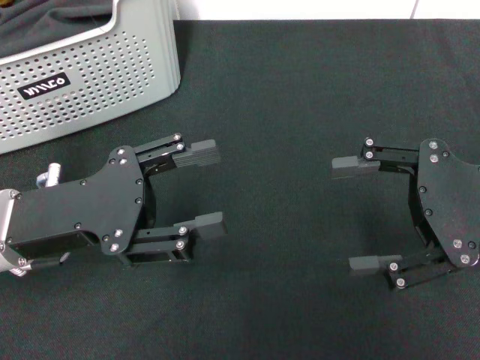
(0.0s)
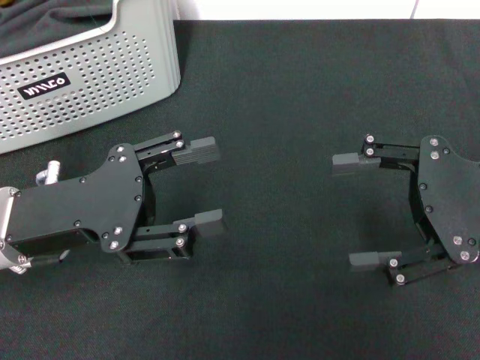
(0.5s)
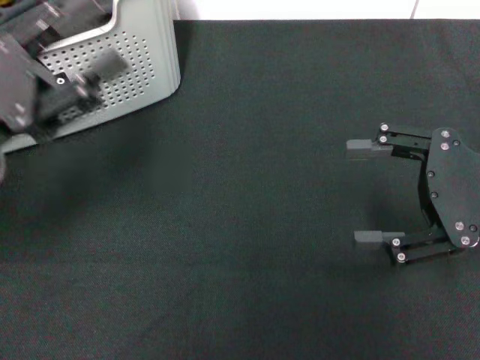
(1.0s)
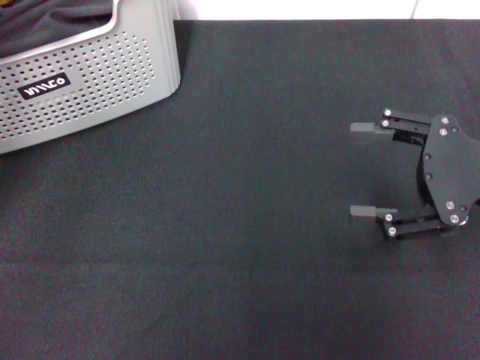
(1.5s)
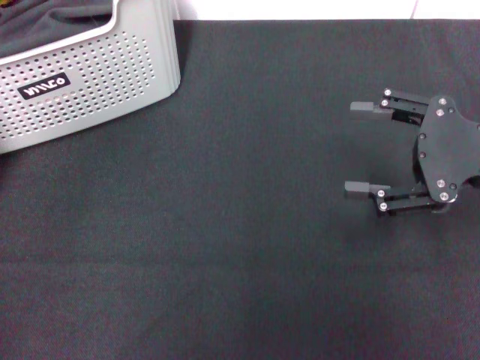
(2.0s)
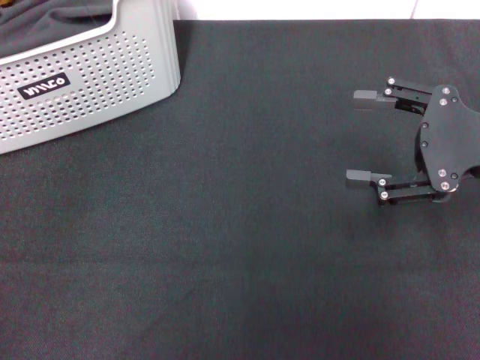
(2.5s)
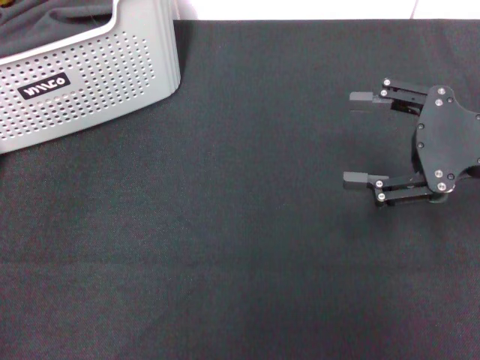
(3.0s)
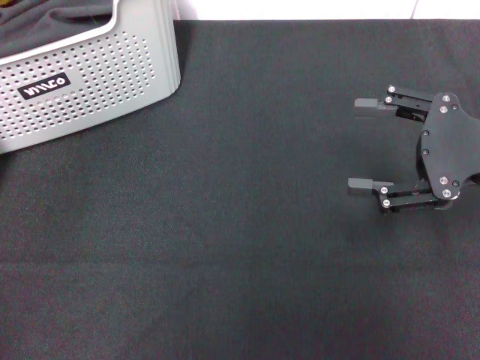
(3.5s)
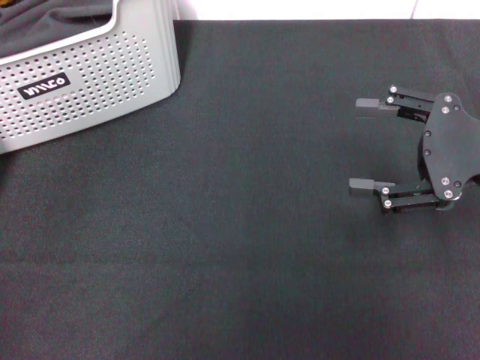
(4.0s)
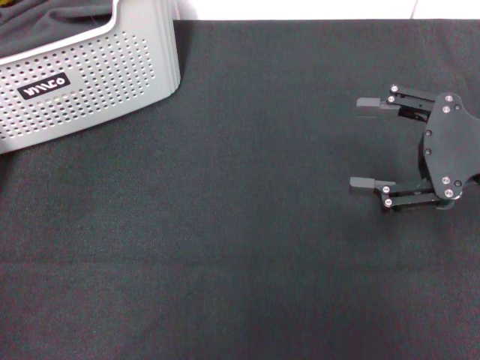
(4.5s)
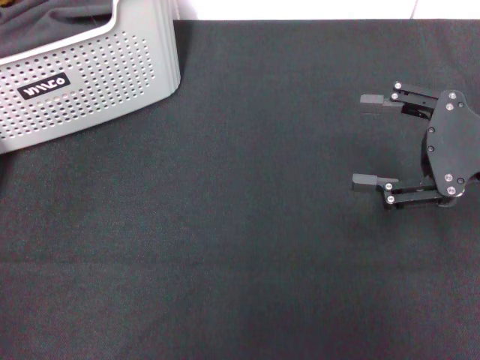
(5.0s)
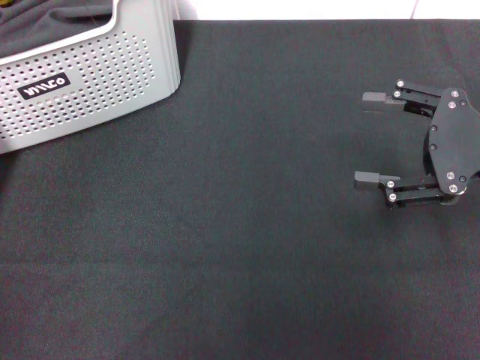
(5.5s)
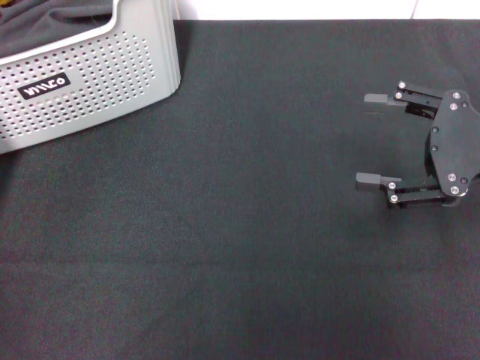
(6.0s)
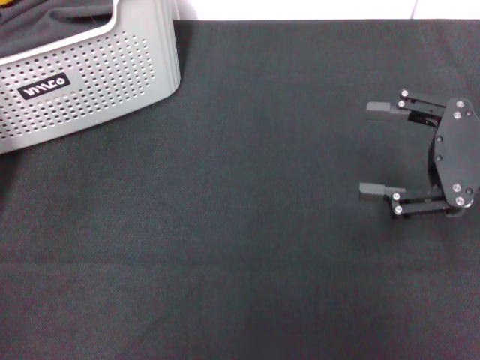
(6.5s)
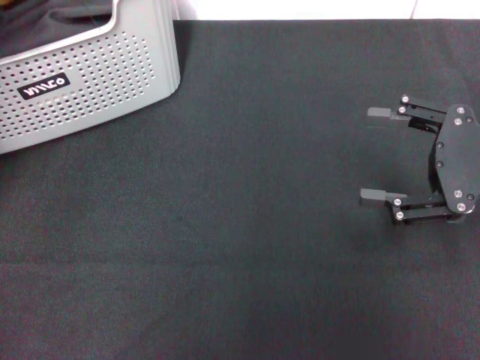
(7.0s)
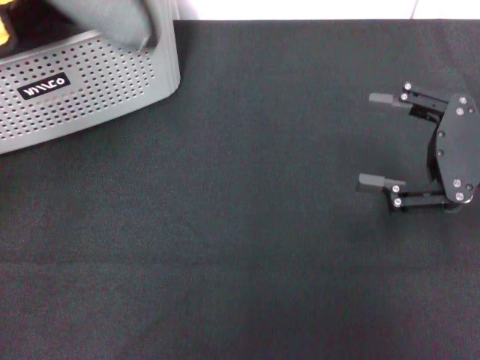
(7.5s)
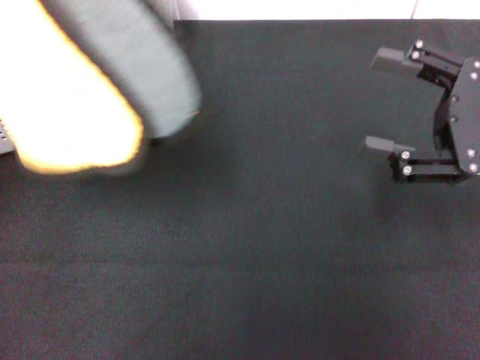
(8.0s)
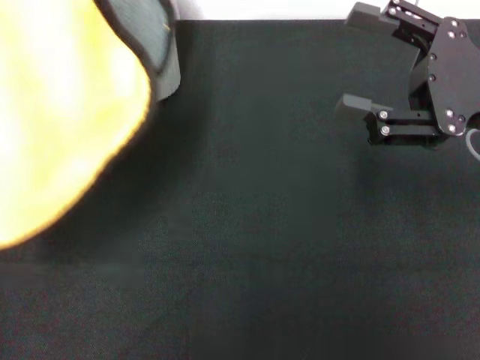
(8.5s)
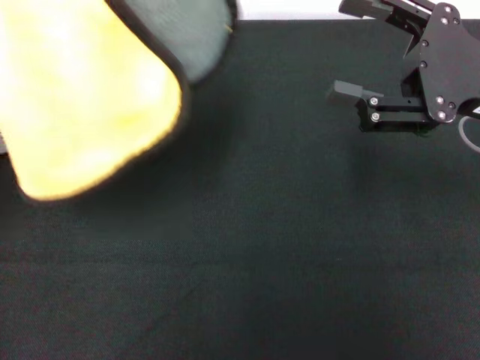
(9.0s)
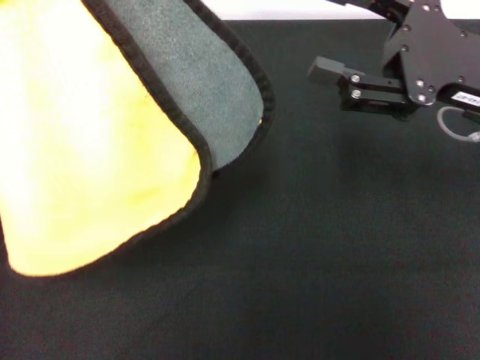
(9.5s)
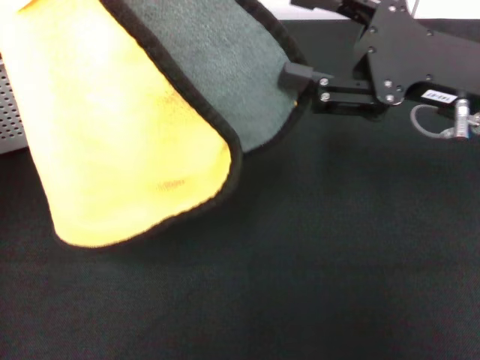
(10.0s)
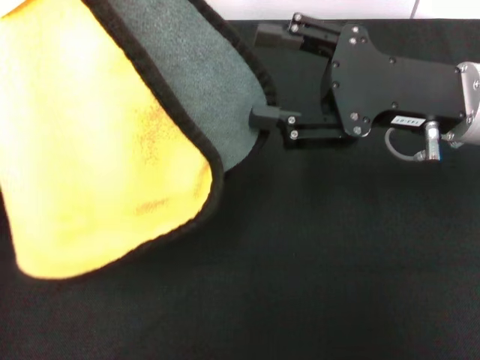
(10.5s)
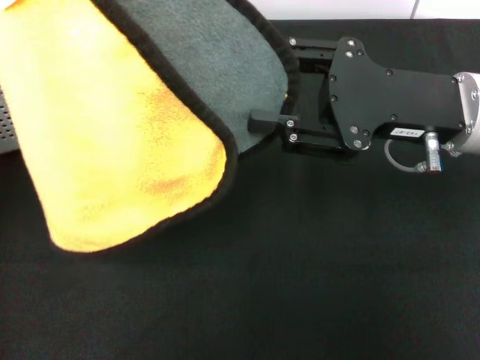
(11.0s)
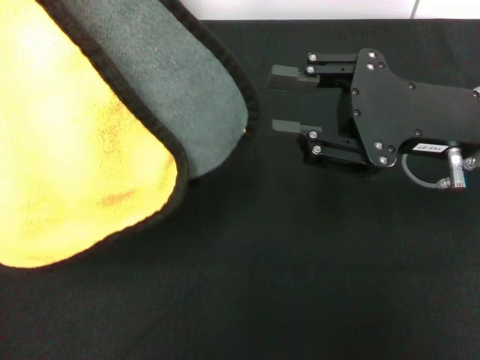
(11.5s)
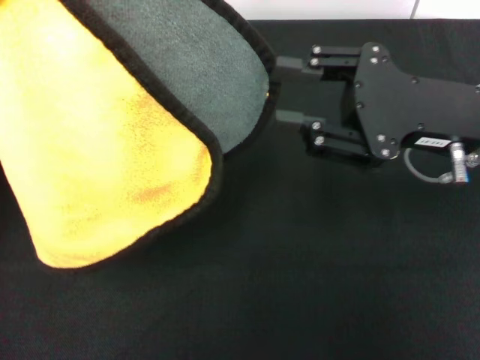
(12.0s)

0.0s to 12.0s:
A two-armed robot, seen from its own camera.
Task of the whole recording: pick up the towel from the storage box and lay it flat on the black tablecloth.
Step, 0.0s to 6.0s: Pick up a towel with the left gripper.
0.0s to 2.0s: The left gripper moves to the left and forward, about 15 cm.
2.0s to 4.0s: There are only small adjustments of the grippers.
6.0s to 8.0s: The left gripper heads upward and backward, covering some 15 cm.
8.0s to 10.0s: The right gripper shifts some 5 cm to the left.
10.0s to 12.0s: The right gripper closes up.

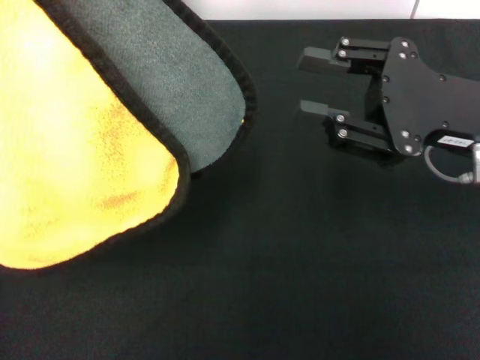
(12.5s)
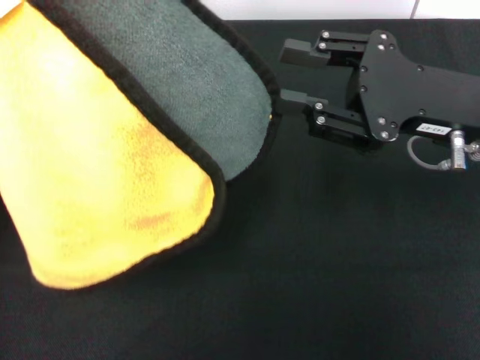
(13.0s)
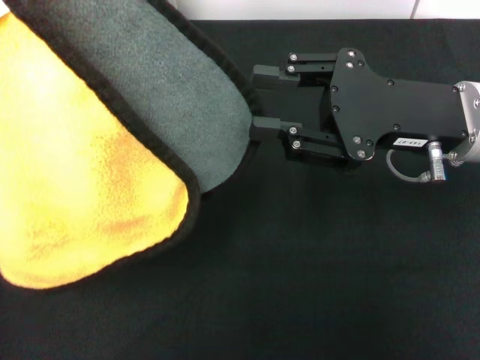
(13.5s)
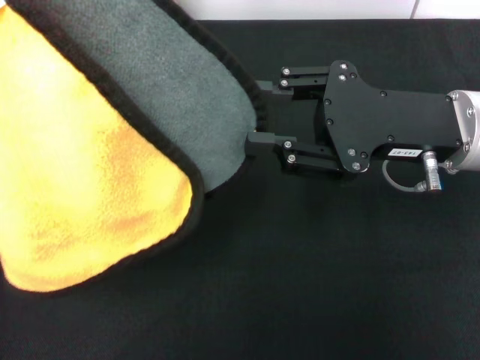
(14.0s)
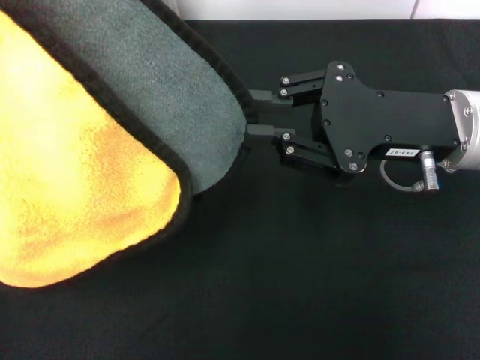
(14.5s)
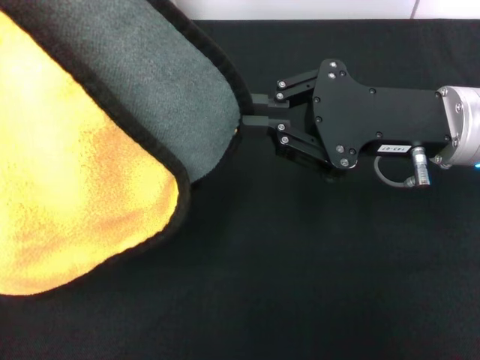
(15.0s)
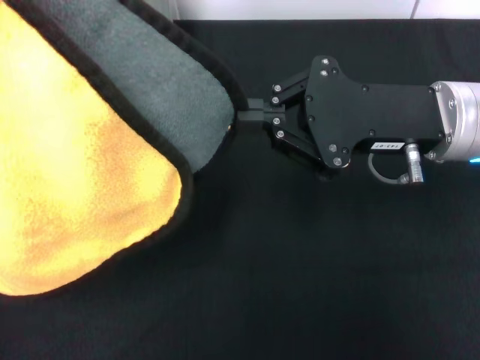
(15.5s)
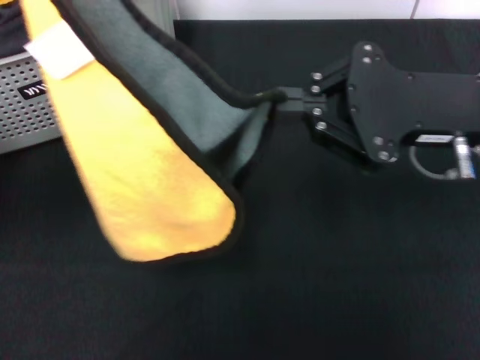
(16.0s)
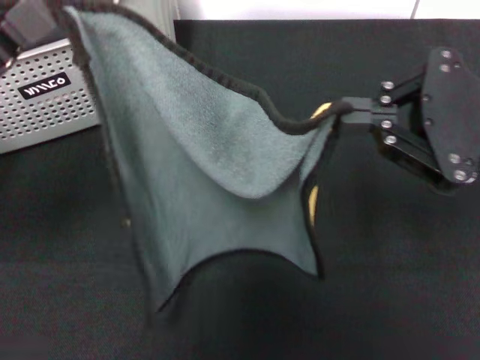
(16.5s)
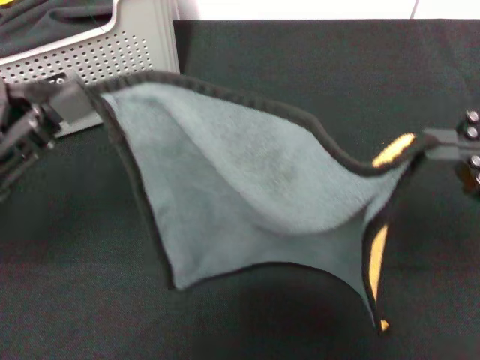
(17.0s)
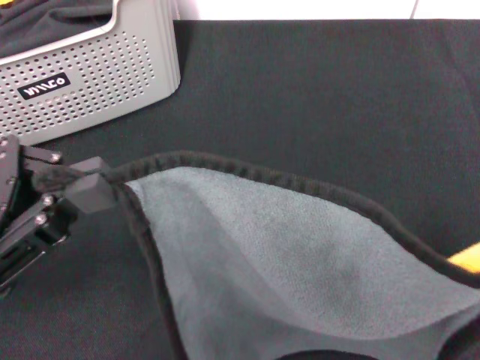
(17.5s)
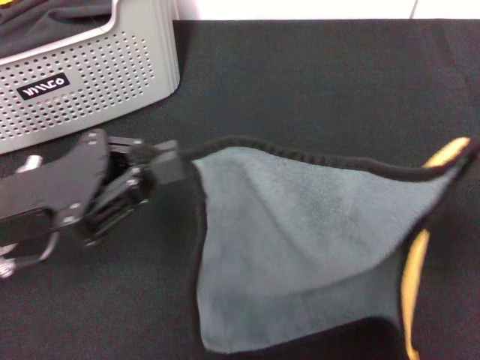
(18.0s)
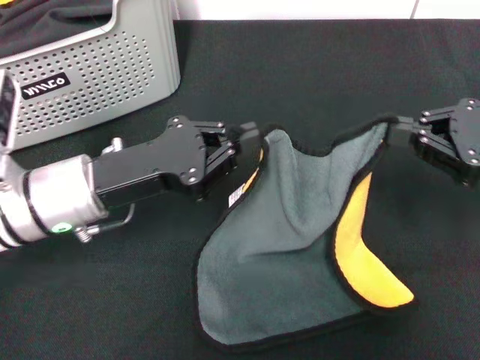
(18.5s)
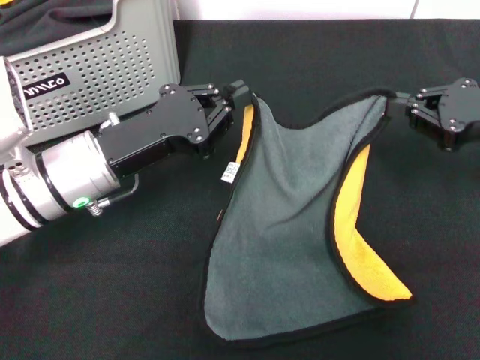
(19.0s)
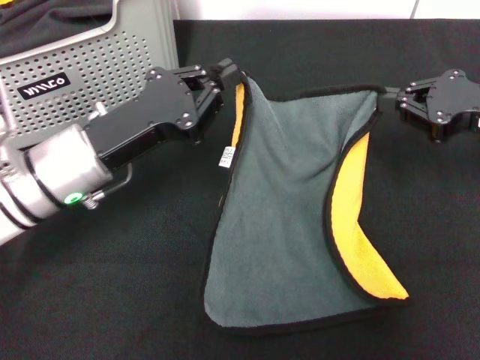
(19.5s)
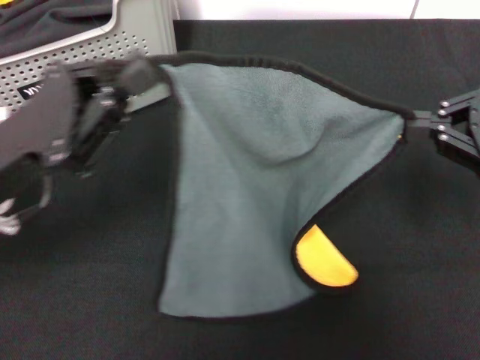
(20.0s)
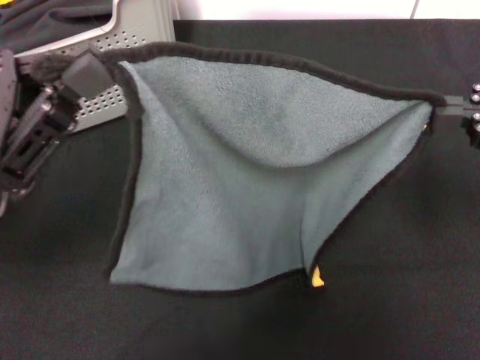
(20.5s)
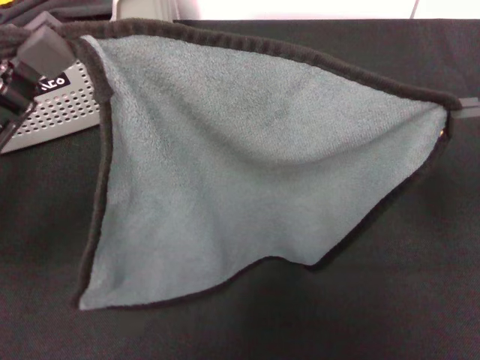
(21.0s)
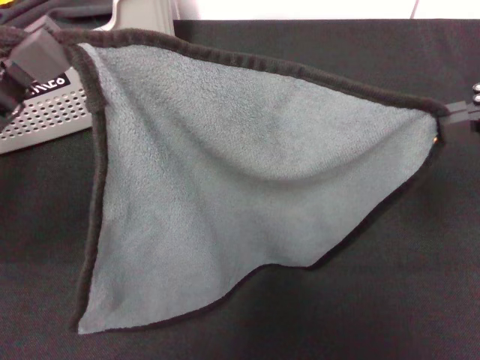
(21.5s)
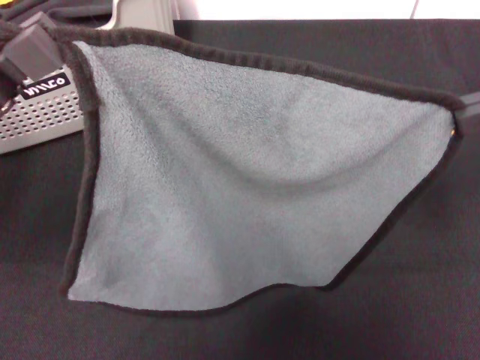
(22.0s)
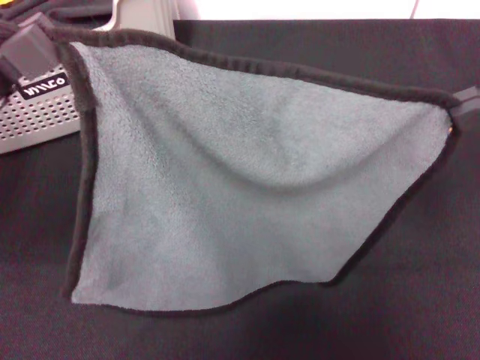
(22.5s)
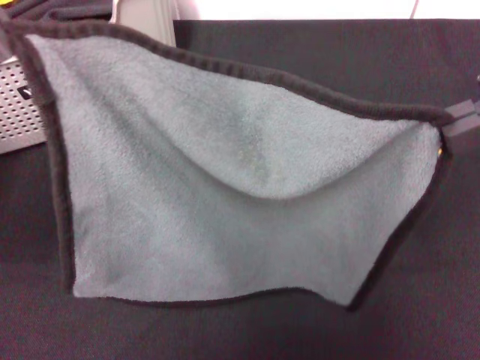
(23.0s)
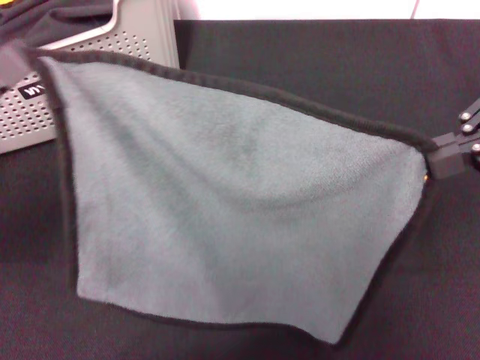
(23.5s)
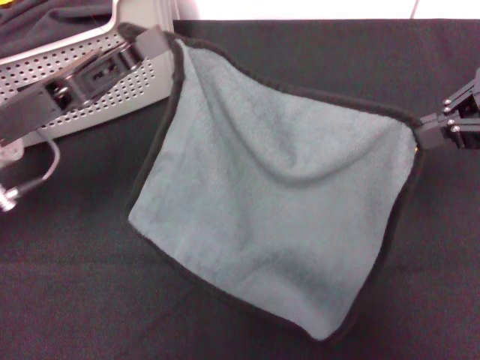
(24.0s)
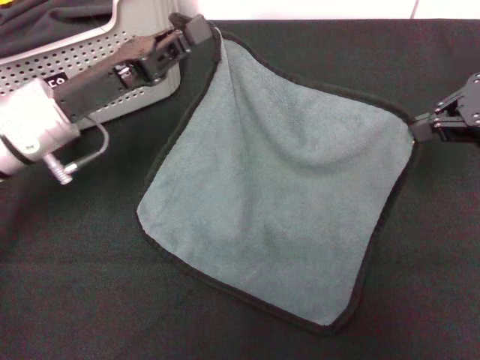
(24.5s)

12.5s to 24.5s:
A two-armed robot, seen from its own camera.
Task of the whole recording: pick up the towel from the storage box and lay it flat on the black tablecloth.
Step, 12.5s to 15.5s: Spread the towel flat with the left gripper.
14.5s to 16.5s: The left gripper travels downward by approximately 10 cm, while the right gripper goes about 10 cm to the right and upward.
16.5s to 18.5s: The left gripper goes about 15 cm to the right and downward. The right gripper travels downward and to the right by approximately 10 cm, and moves roughly 5 cm backward and comes back.
18.5s to 20.5s: The left gripper heads upward, to the left and backward, covering some 10 cm, while the right gripper moves upward, some 5 cm.
20.5s to 22.5s: The right gripper moves upward, some 10 cm.
22.5s to 24.5s: The right gripper travels downward and forward by about 15 cm; the left gripper is displaced forward, downward and to the right by roughly 15 cm.

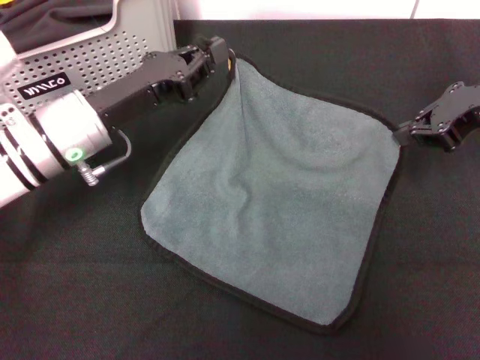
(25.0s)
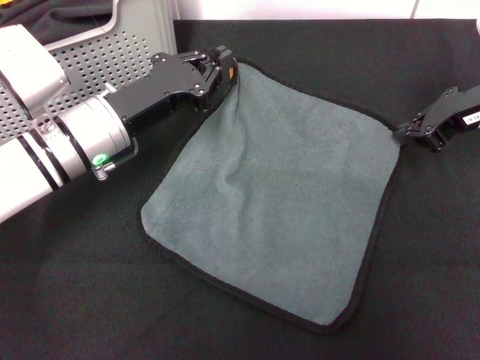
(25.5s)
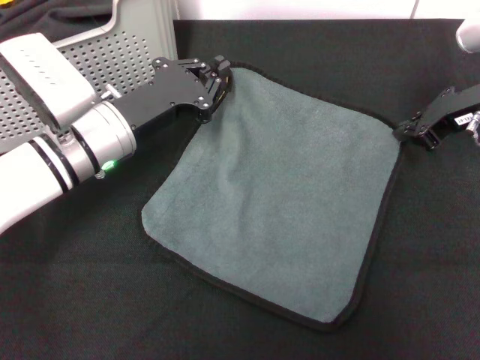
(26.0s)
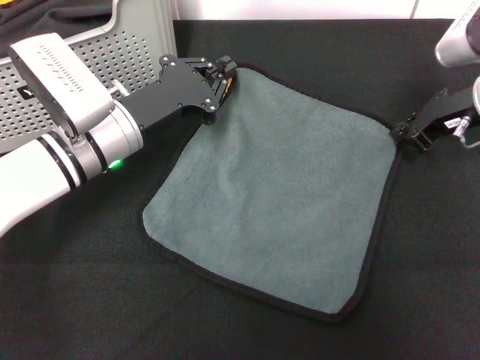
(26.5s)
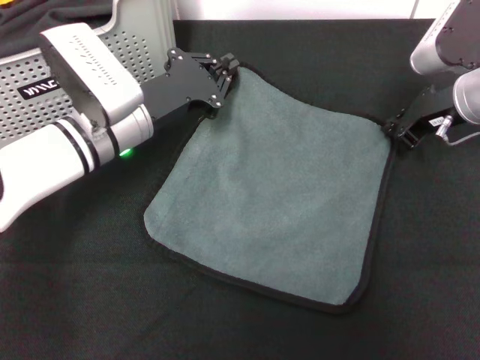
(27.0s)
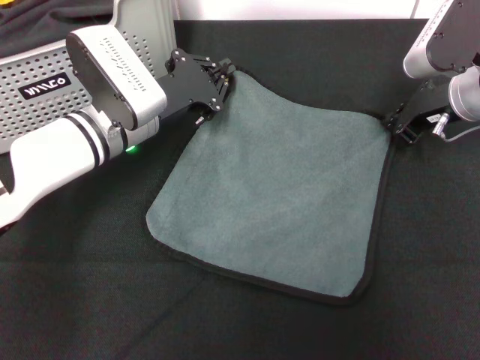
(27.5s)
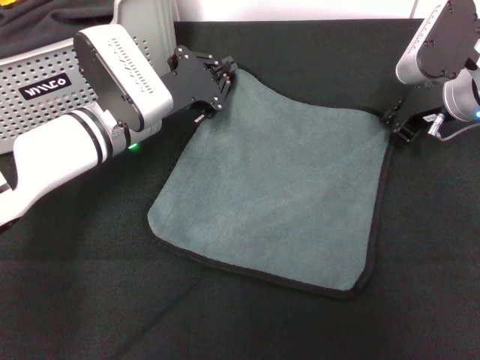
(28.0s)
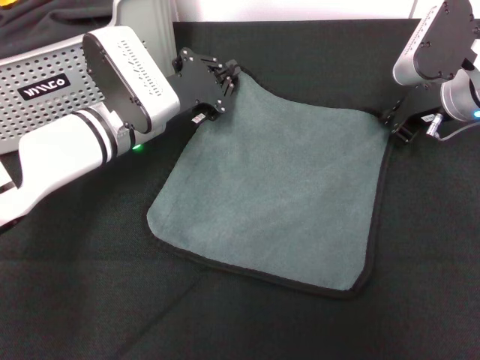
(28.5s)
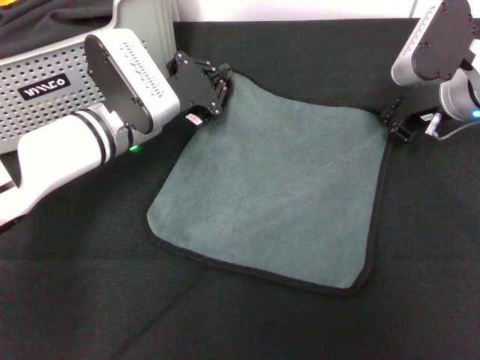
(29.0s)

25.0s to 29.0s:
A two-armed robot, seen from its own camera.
Task of the whole recording: pick up the towel from the storage box and lay it flat on the black tablecloth.
25.0s to 27.0s: The right gripper is displaced downward by approximately 5 cm. The left gripper shifts by some 5 cm.
27.0s to 29.0s: The grippers make only small movements.
